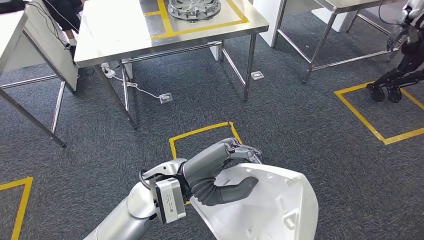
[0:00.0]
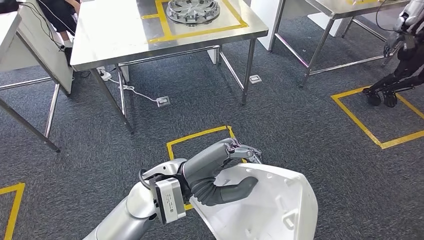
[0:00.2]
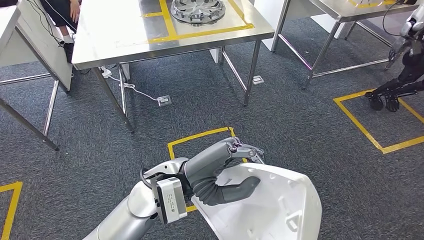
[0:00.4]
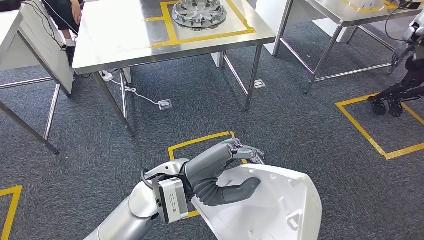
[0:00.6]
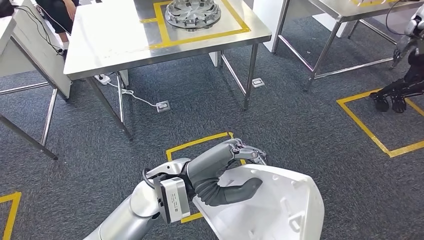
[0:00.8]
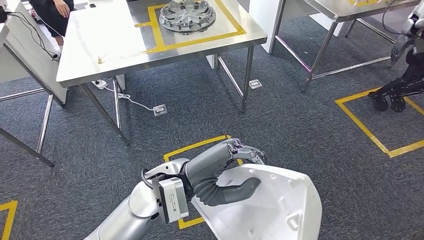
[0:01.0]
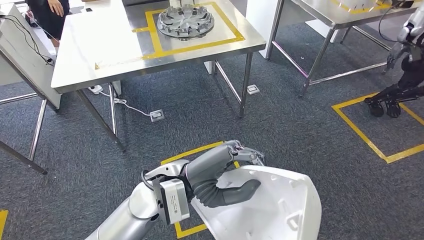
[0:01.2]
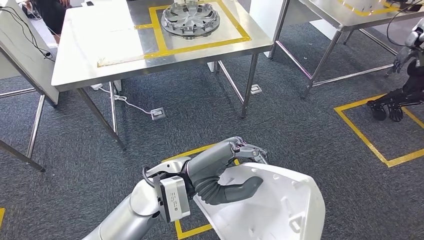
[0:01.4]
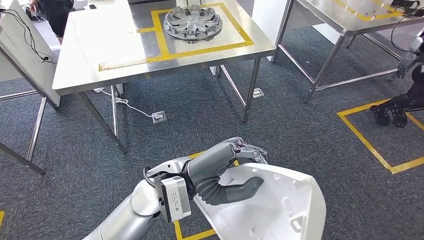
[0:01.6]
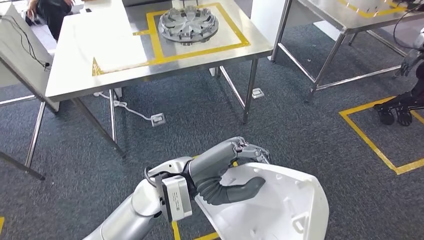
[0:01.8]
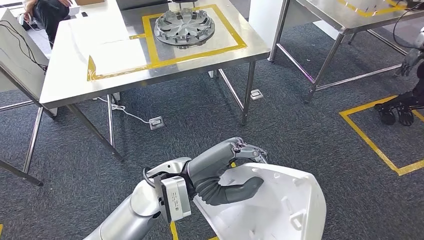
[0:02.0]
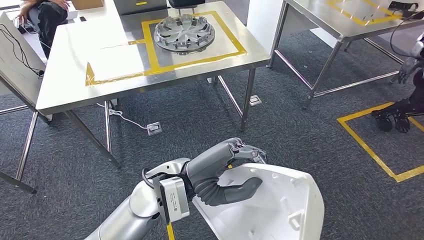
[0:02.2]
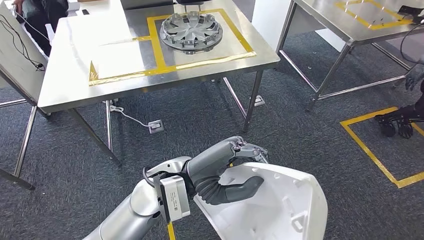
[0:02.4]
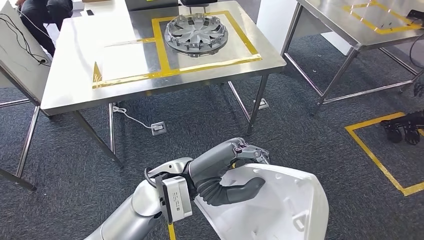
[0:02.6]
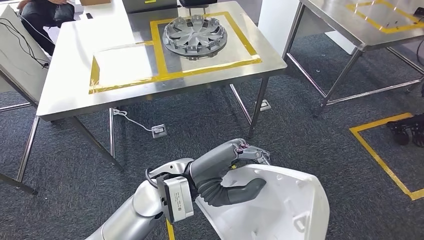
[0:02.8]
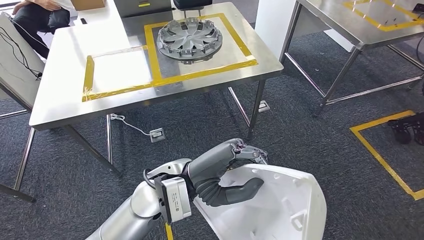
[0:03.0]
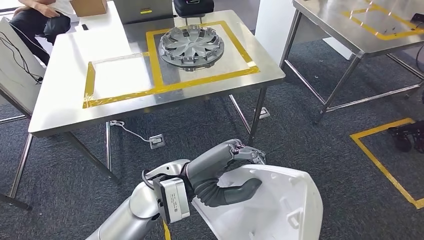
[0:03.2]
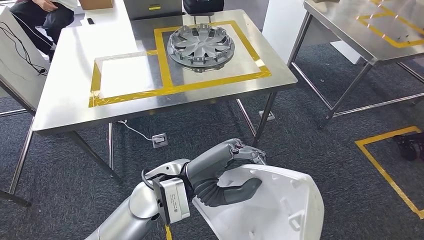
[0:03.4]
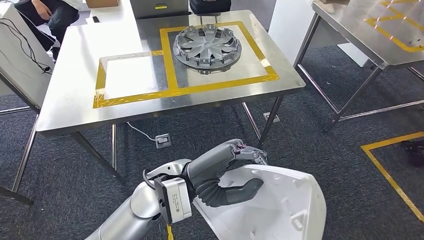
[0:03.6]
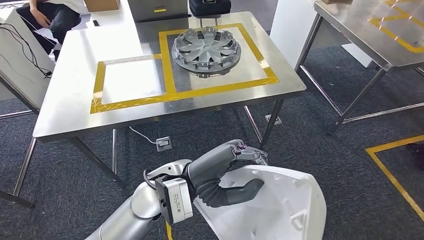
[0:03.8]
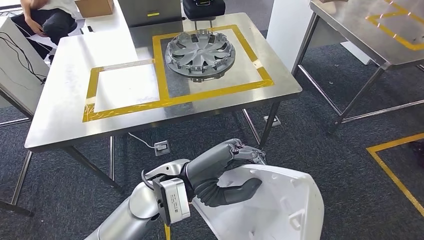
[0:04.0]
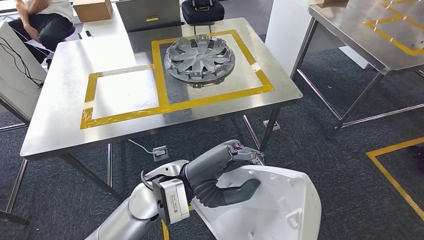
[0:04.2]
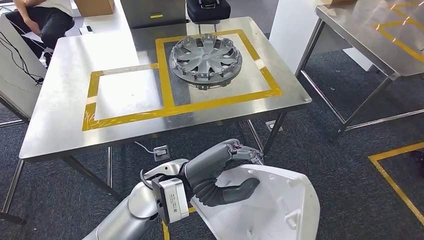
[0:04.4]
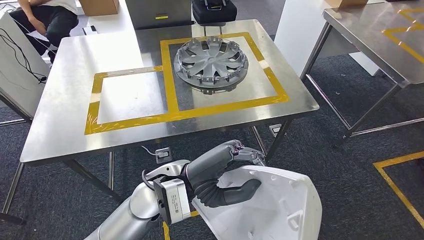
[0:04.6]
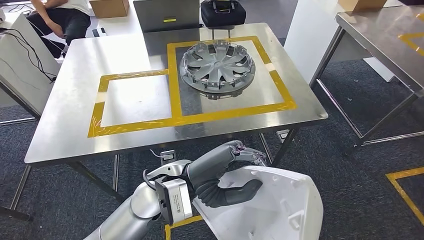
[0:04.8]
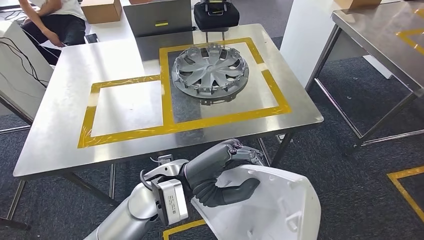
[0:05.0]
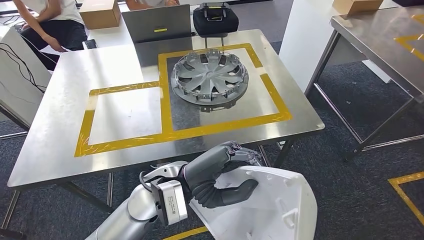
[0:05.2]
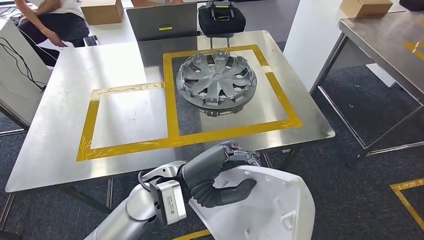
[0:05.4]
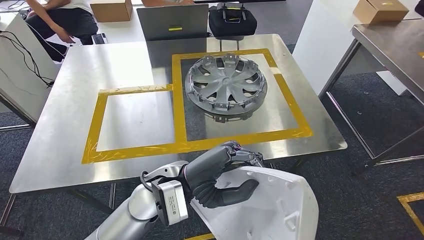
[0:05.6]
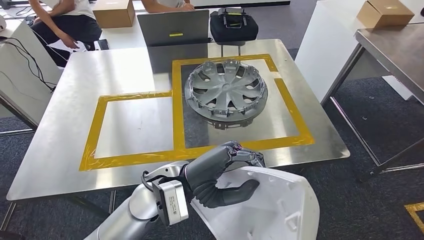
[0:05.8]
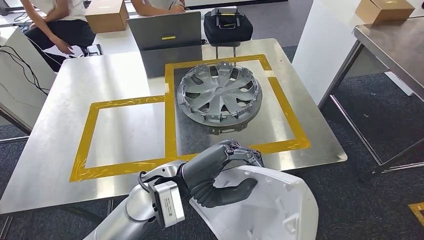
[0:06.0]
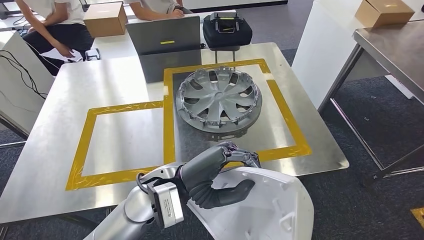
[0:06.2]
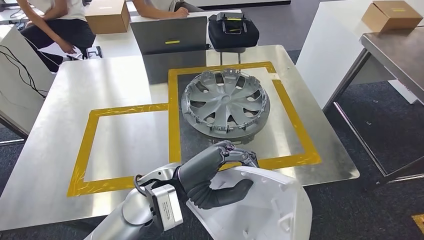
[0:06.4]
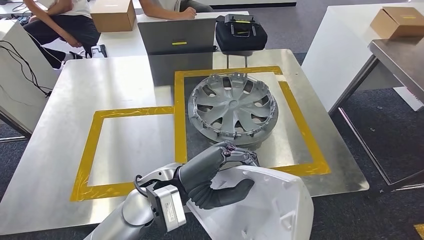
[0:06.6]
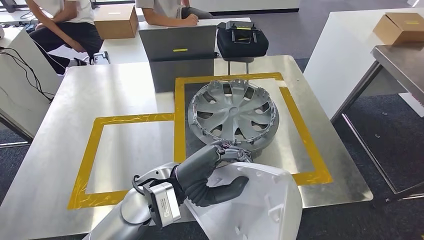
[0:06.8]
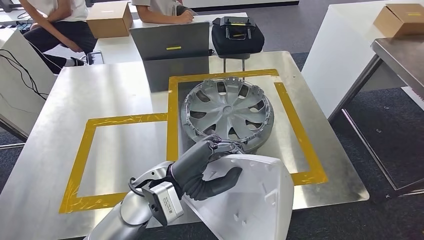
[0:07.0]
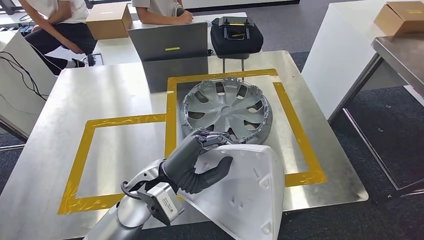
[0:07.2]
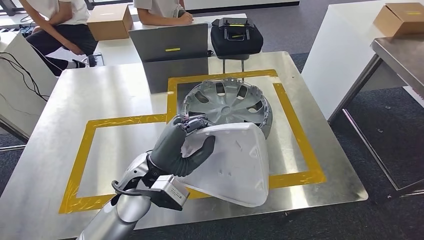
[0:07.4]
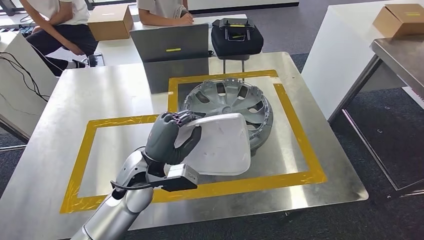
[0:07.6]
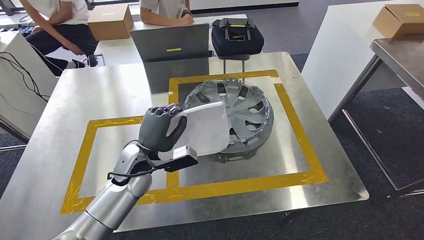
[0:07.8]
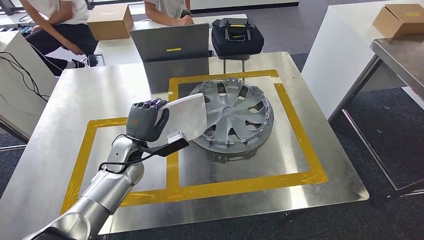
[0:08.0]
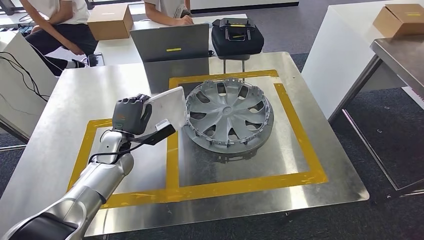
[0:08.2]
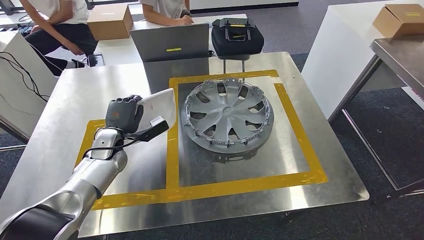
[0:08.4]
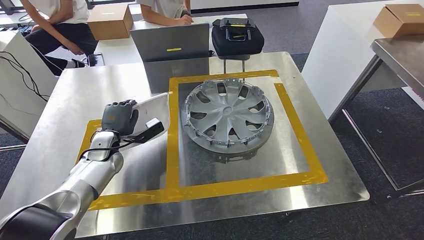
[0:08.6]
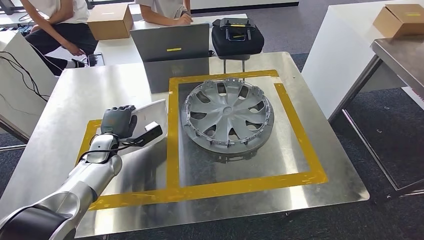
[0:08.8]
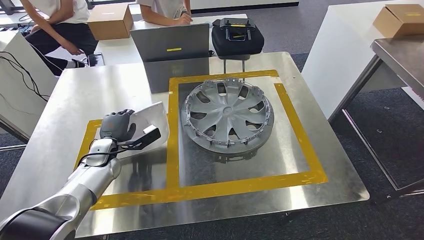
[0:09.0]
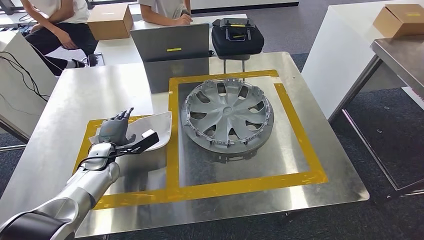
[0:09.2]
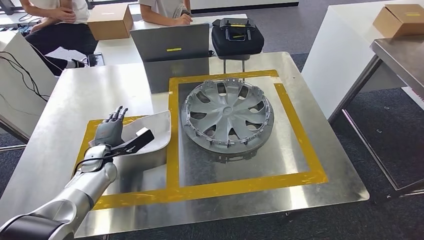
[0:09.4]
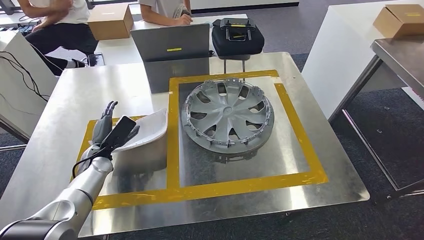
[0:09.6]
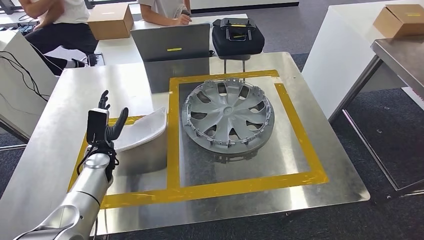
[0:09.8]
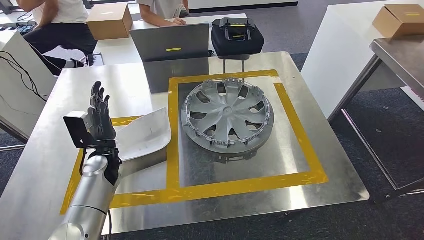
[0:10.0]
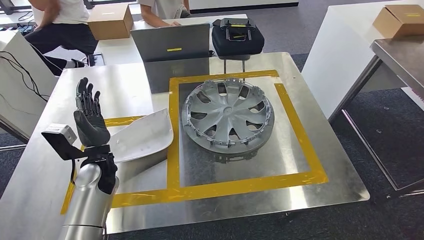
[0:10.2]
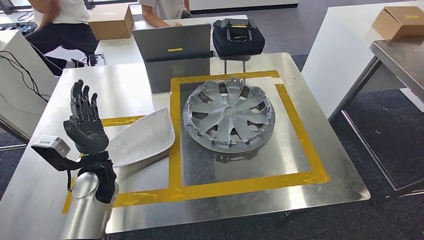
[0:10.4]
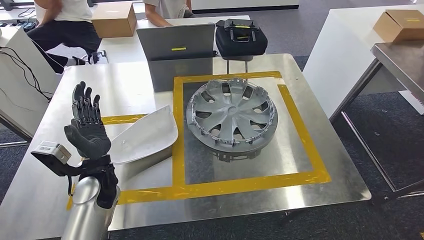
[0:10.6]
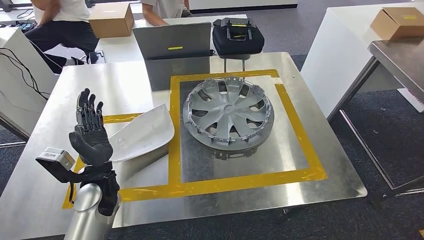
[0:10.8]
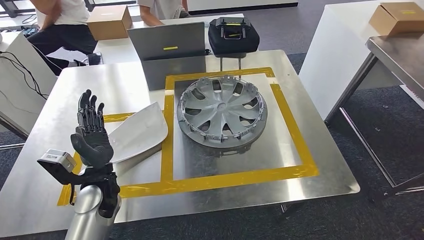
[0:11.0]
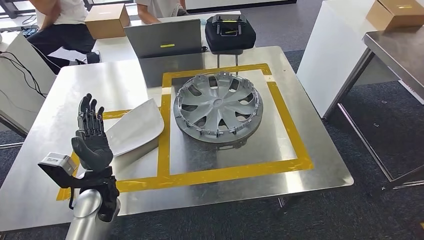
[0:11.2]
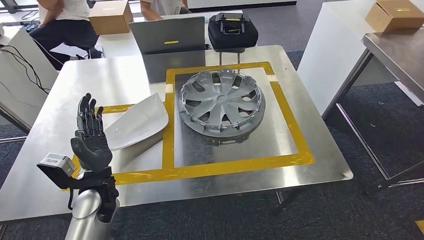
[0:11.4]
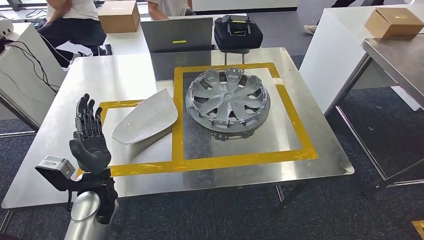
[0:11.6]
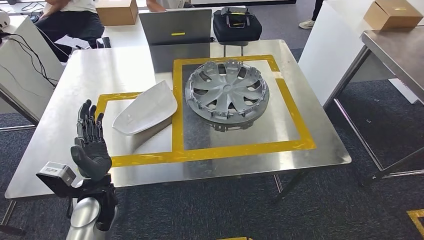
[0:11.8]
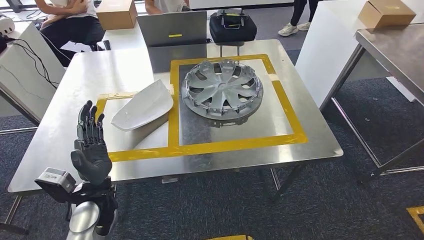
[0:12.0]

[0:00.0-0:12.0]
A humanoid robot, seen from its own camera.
Step, 0:00.0 to 0:06.8: Move the small component to the workbench.
Step, 0:07.0 to 0:10.2: Insert the small component into the corresponding slot on the workbench.
0:07.6 to 0:09.0: The left hand goes some 20 cm to the left, downward and forward.

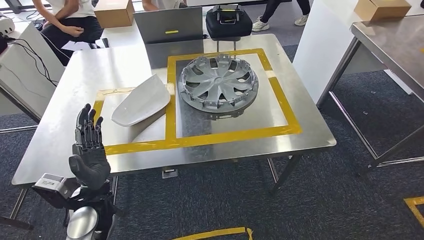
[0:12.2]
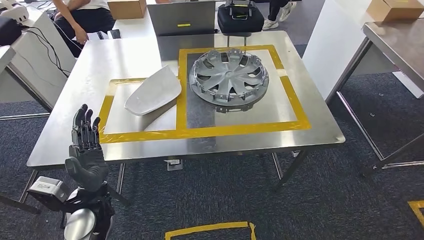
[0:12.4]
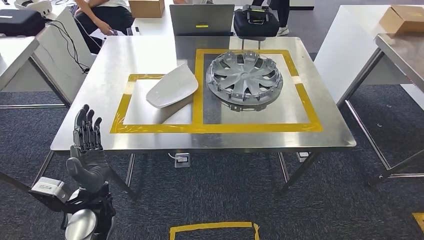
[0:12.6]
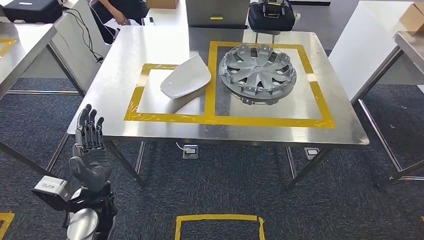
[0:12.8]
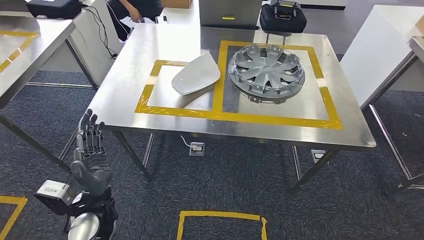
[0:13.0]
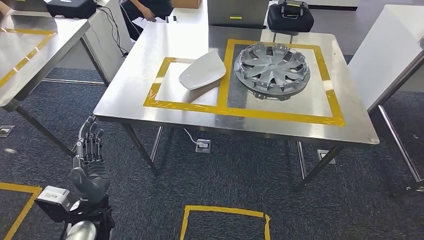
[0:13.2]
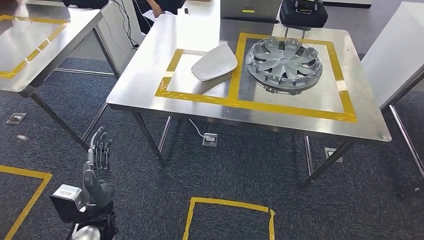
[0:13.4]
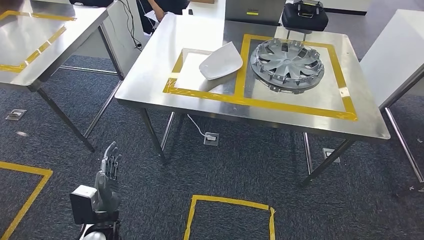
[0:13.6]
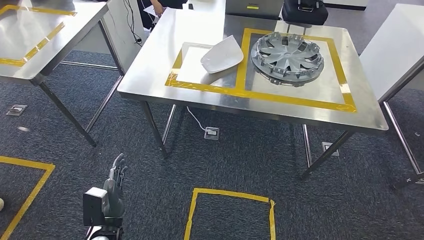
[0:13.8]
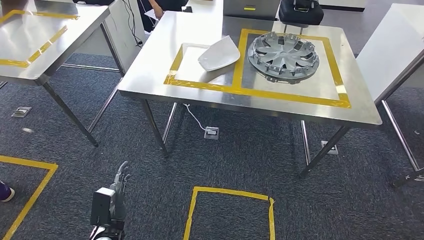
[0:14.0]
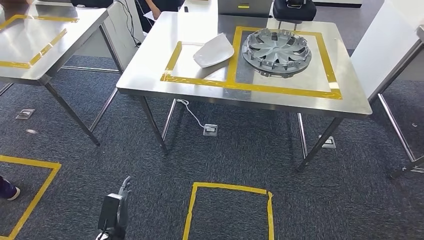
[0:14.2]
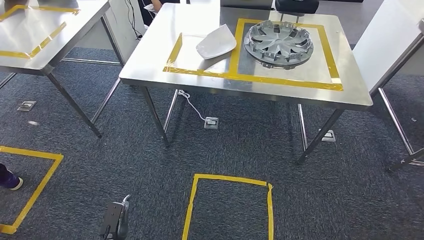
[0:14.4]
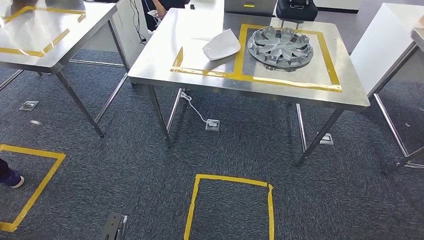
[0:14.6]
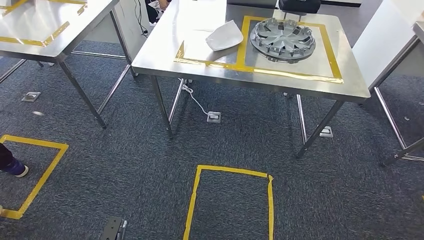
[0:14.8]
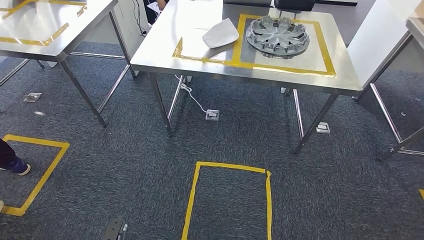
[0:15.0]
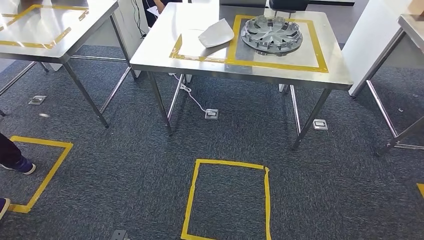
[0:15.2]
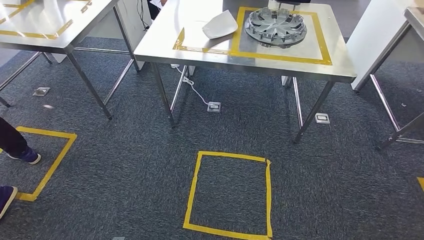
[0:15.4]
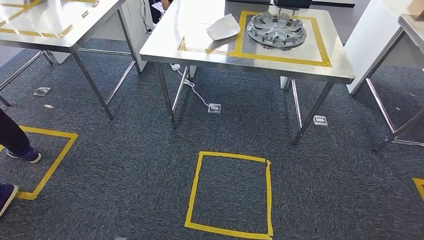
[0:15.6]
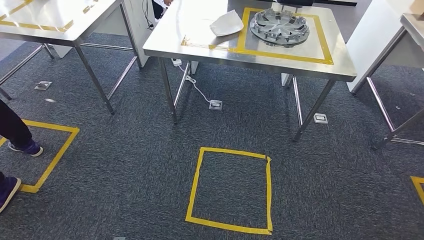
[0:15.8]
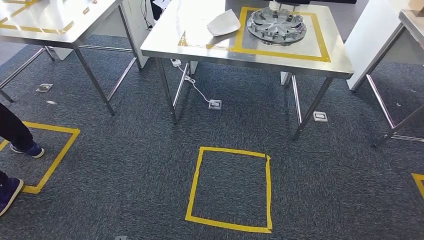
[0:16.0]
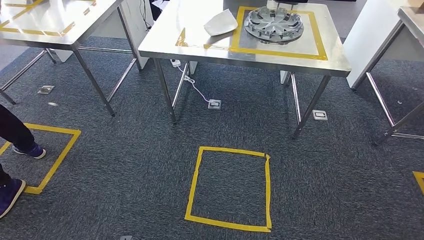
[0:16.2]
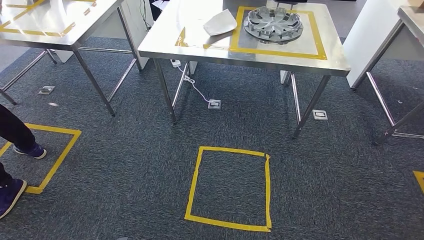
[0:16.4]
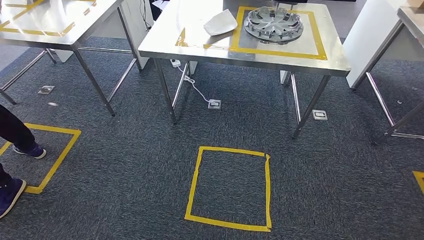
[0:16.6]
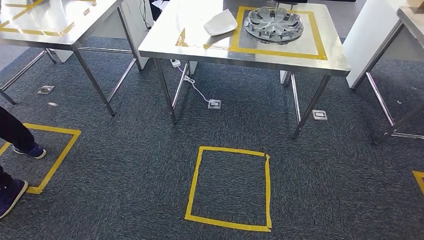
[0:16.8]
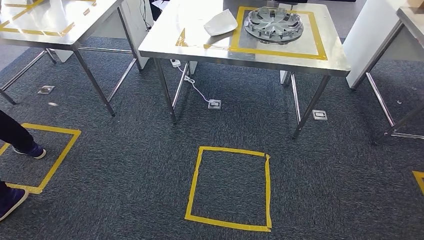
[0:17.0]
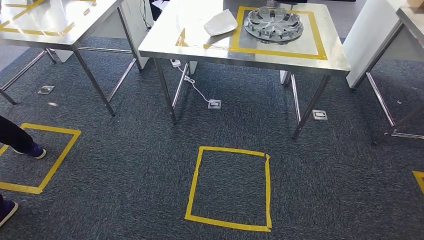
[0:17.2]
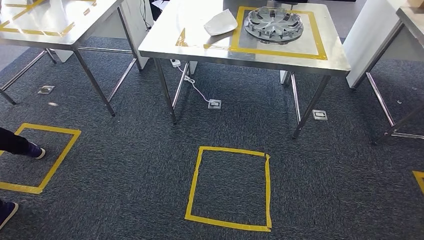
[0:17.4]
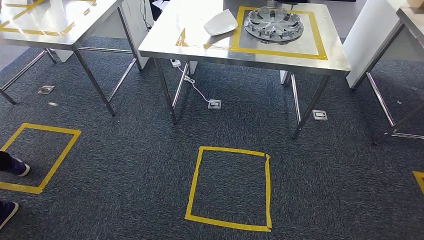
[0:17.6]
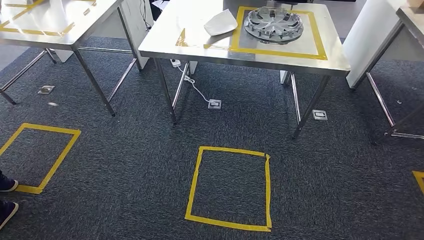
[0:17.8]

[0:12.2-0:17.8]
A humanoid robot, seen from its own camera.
Step, 0:12.2 to 0:17.6: Return to the initial position at the workbench.
0:16.4 to 0:17.8: The left hand shifts approximately 5 cm backward.
